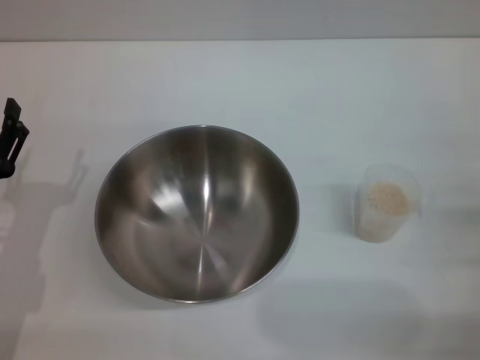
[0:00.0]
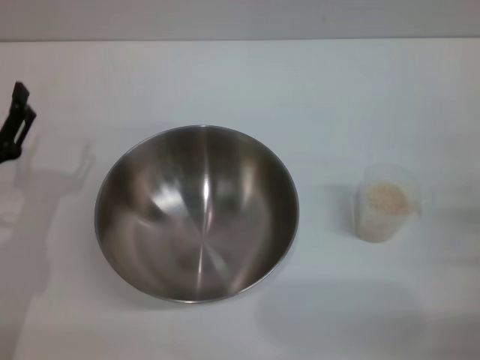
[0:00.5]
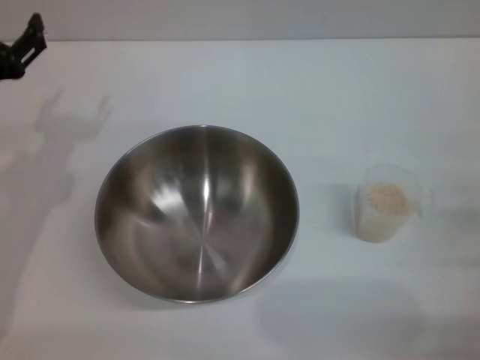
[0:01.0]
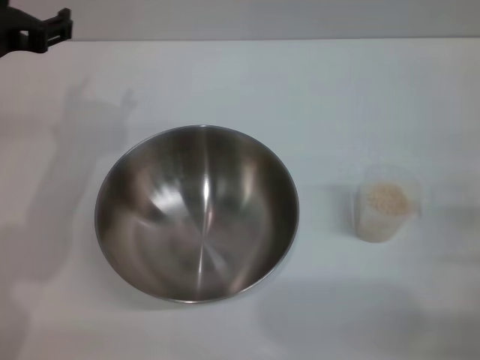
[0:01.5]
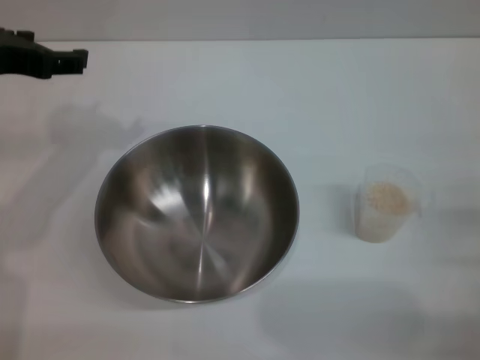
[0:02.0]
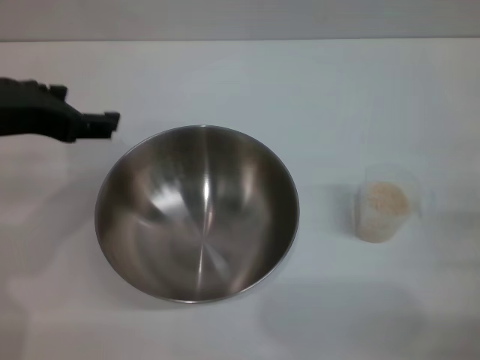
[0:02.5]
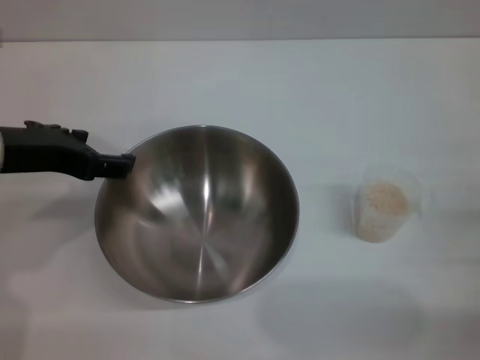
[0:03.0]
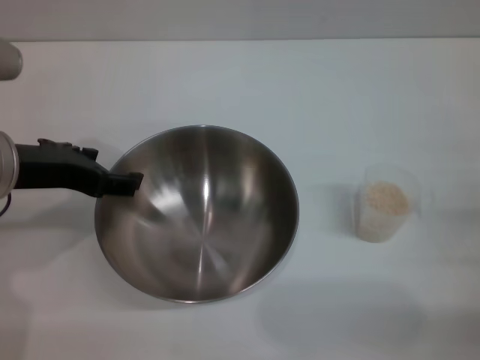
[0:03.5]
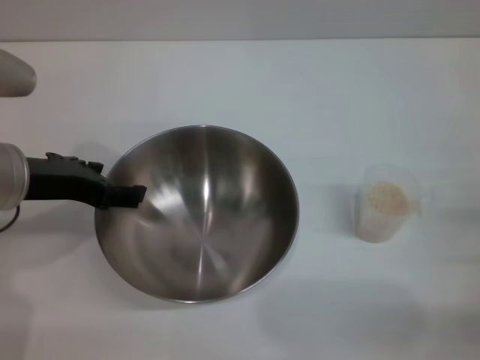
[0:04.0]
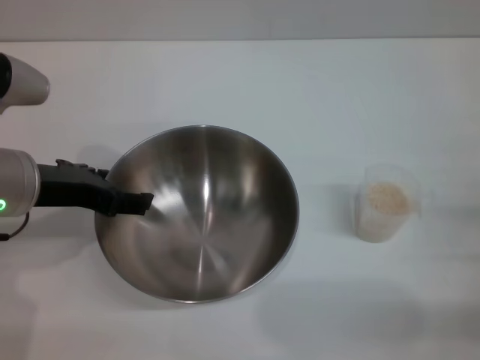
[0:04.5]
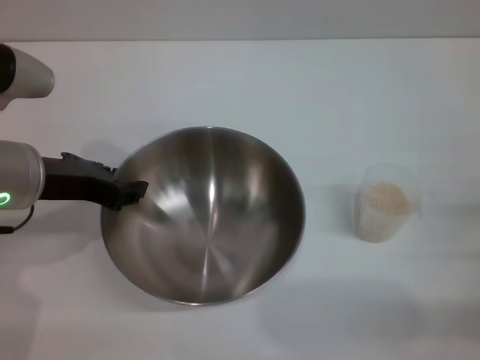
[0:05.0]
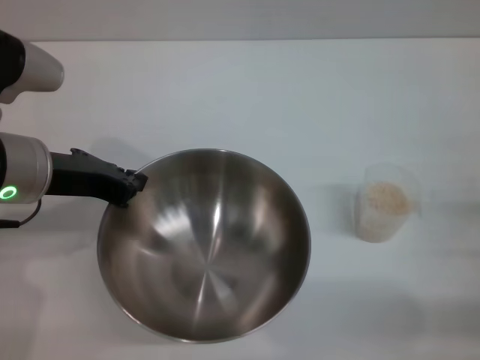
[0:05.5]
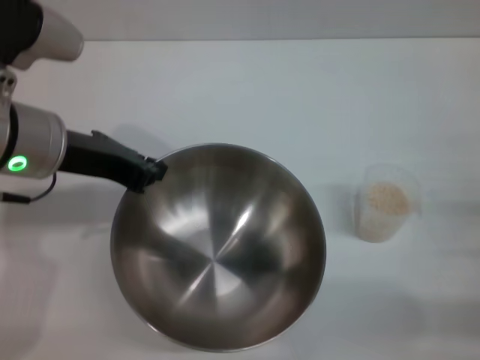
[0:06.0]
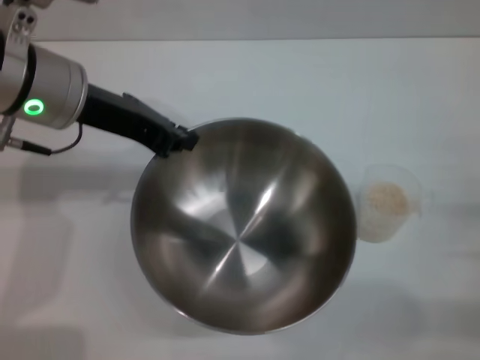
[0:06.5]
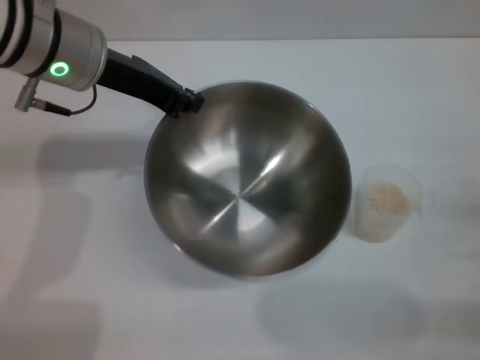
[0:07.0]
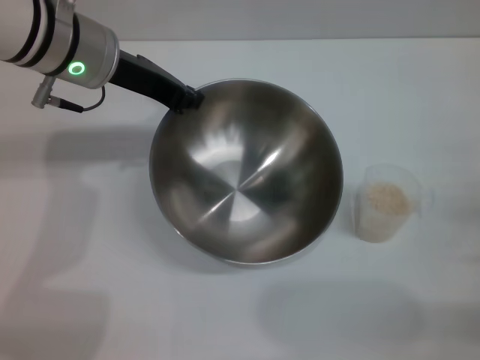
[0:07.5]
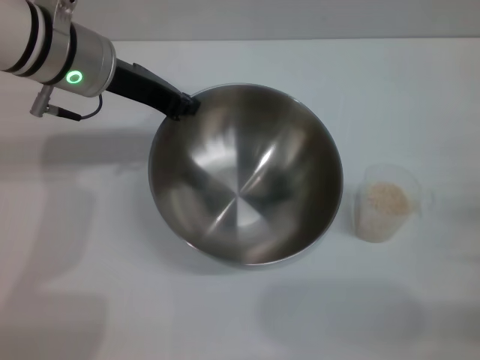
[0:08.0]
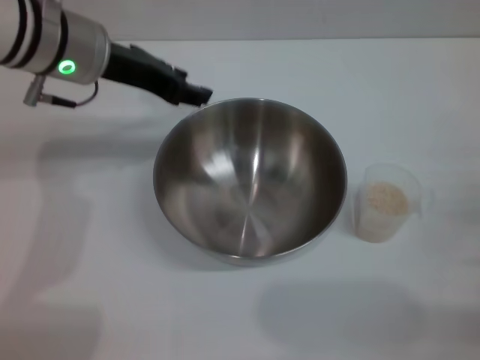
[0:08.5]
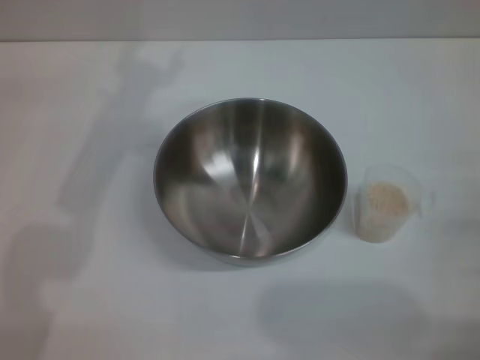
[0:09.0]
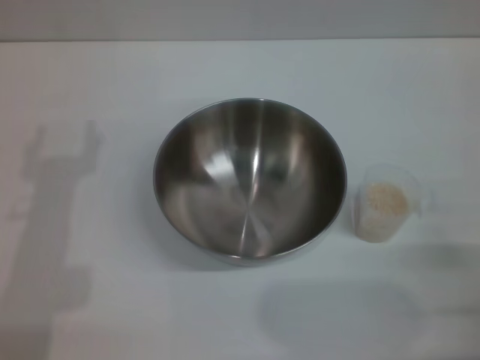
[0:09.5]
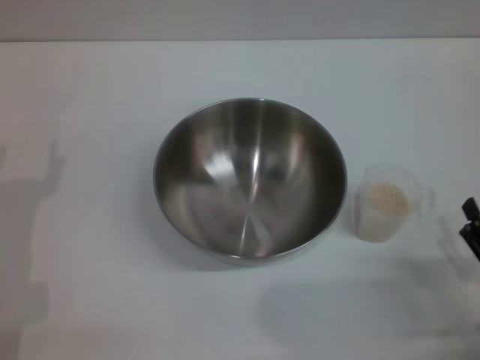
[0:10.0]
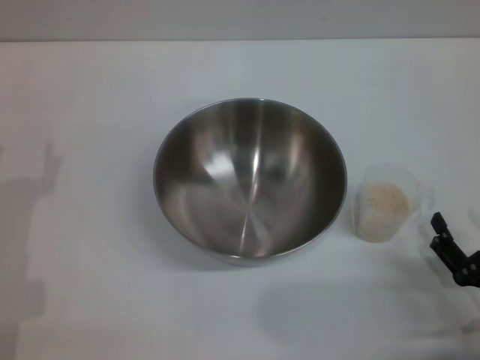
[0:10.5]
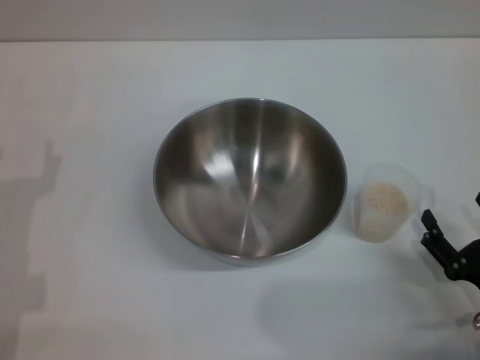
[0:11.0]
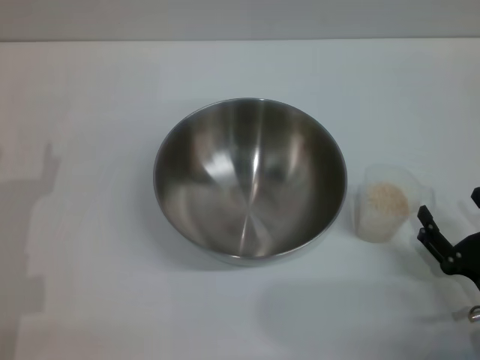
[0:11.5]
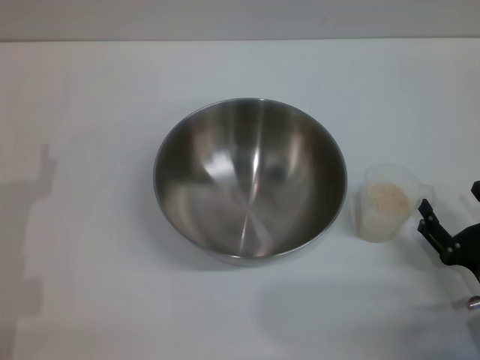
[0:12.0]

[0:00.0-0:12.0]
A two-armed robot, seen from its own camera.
Task of the whole recording: Place the bowl in the middle of the table with one hand and pour the rice from the grain cup into it with the other hand.
Step, 0:00.0 to 0:05.5: Pick up the bowl with the left gripper.
Step, 0:06.5 to 0:08.5: Place the bowl in the center of view with the left gripper.
0:00.0 to 0:02.0: The left gripper moves upward and forward, roughly 20 cm.
0:02.0 to 0:04.0: The left gripper heads downward, covering some 5 cm.
0:04.0 to 0:06.0: The left gripper closes.
0:06.0 to 0:08.0: The left gripper heads forward, covering approximately 10 cm.
0:08.0 to 0:10.0: The right gripper is displaced backward by about 5 cm; the left gripper goes about 25 cm backward, downward and to the left, and opens its fingers.
0:10.0 to 0:12.0: There are only small adjustments of the grippers.

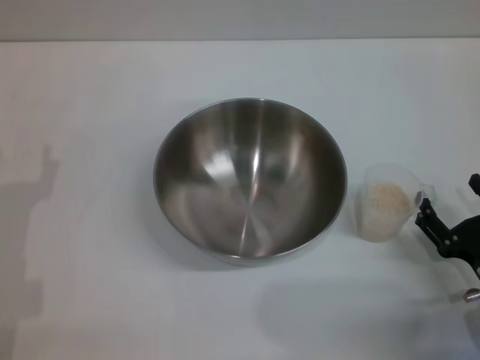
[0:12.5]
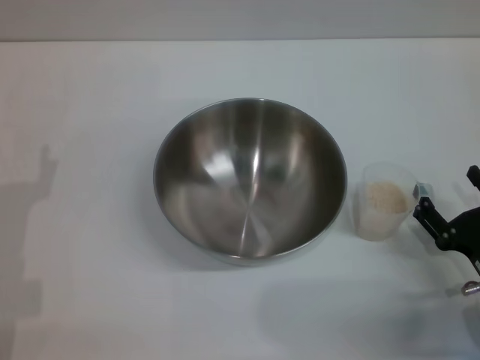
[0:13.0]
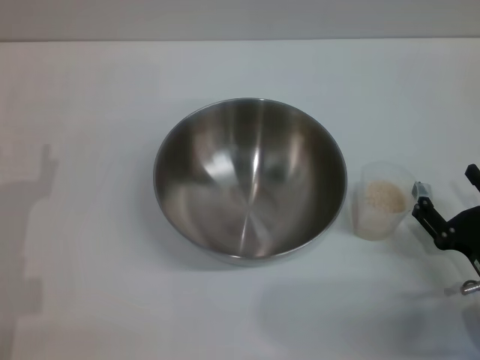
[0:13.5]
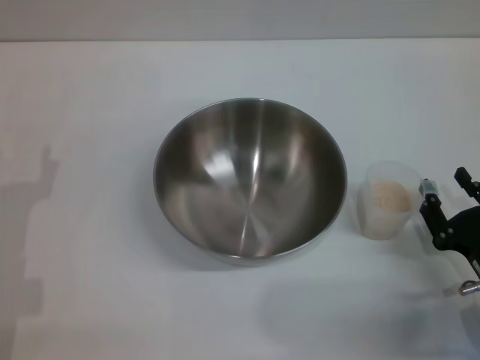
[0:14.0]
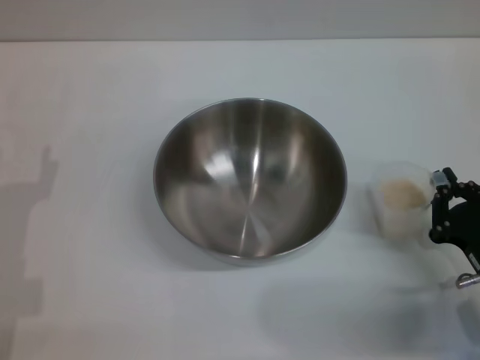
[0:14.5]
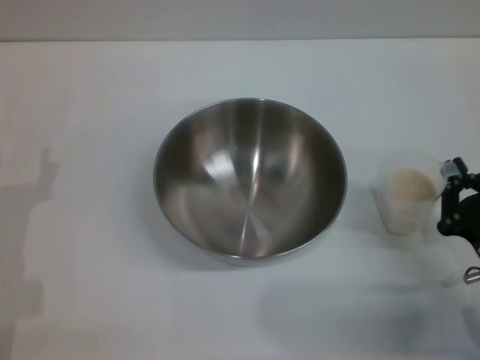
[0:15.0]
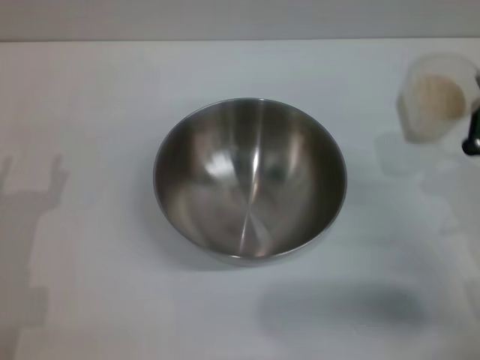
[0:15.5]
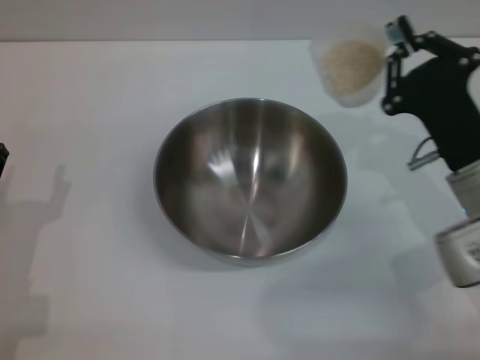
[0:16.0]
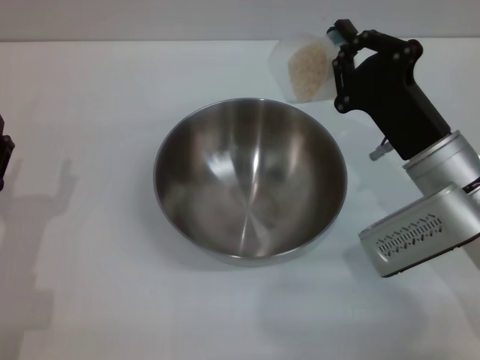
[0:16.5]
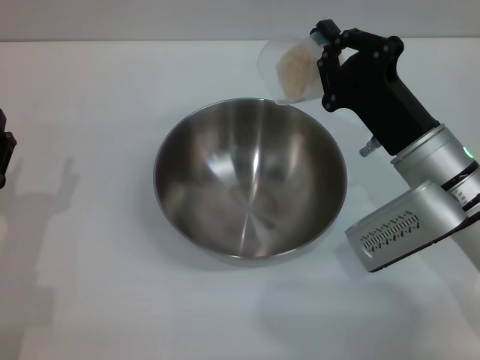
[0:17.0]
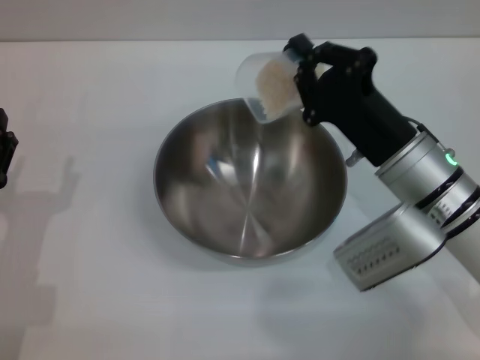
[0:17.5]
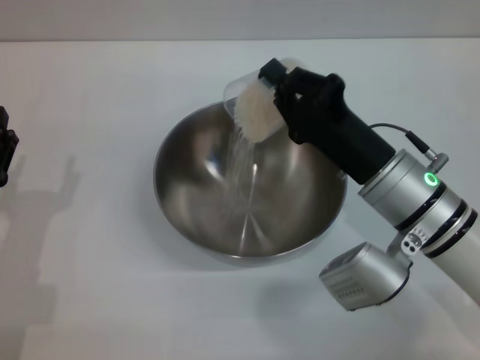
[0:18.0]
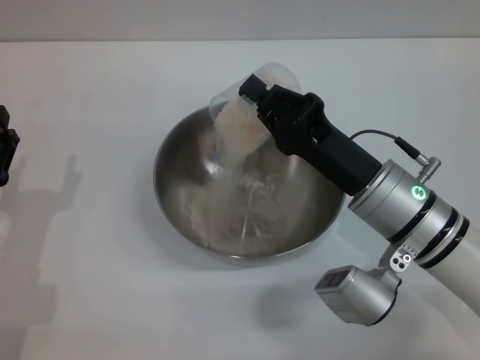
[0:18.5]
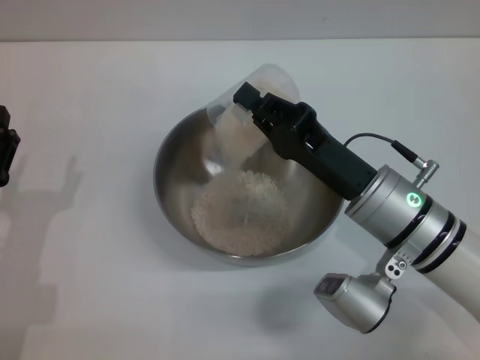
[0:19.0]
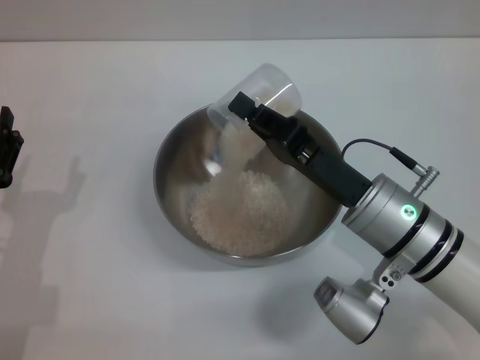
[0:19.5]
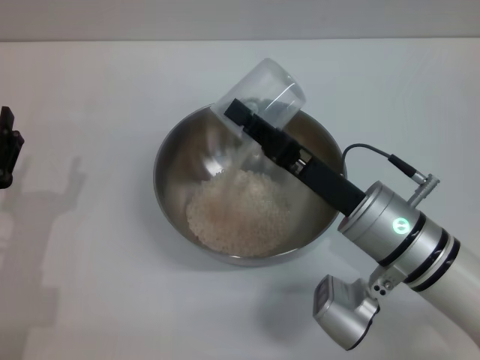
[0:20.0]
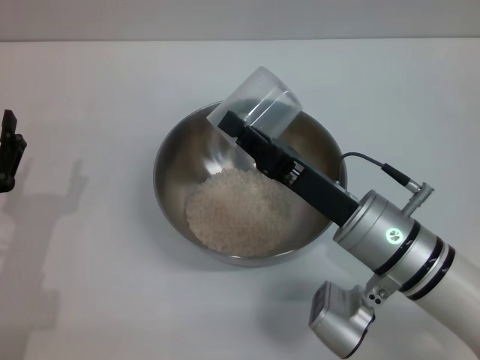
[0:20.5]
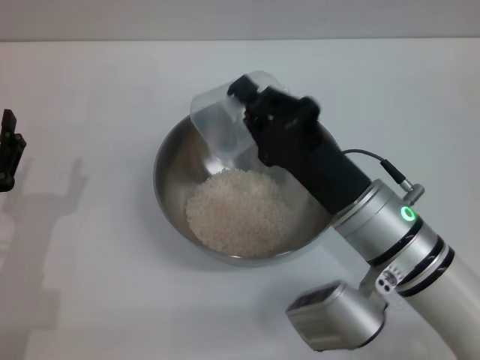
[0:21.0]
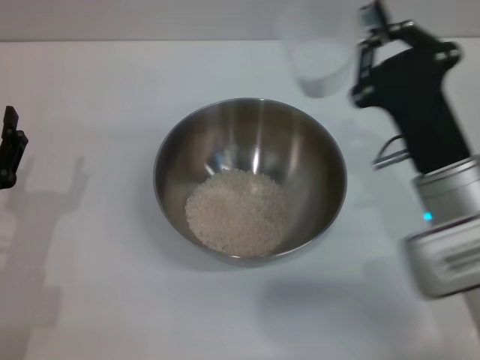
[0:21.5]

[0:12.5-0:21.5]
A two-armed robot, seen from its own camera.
Task of the whole recording: Place the bowl in the middle of the table with one hand and pour the rice from the grain cup into it with the other hand.
Step, 0:12.5 to 0:15.0: Pick up the cup with rice in it with the right gripper.
0:12.5 to 0:14.5: The right gripper closes its fingers.
0:14.5 to 0:17.0: The right gripper is displaced forward, to the left and upward by about 15 cm.
0:17.0 to 0:19.5: The right gripper moves roughly 5 cm.

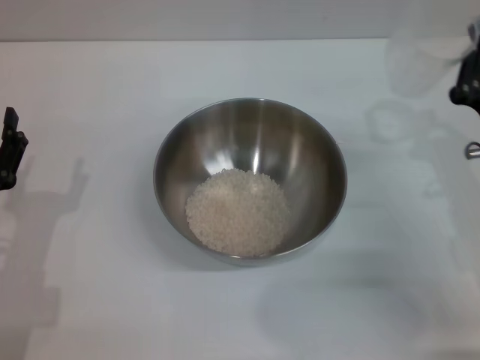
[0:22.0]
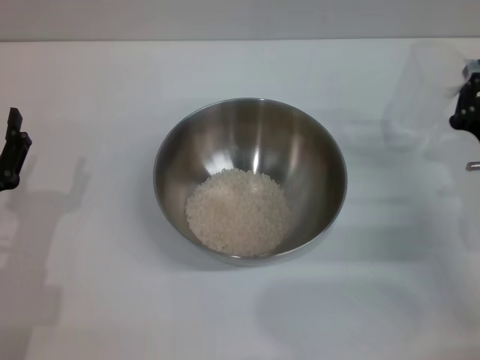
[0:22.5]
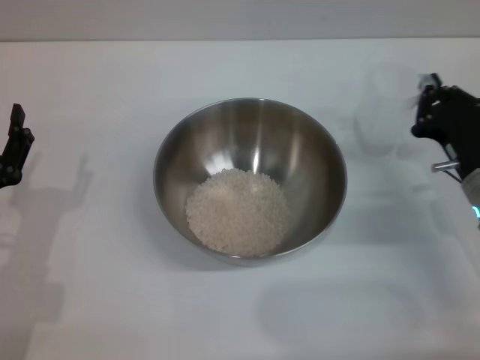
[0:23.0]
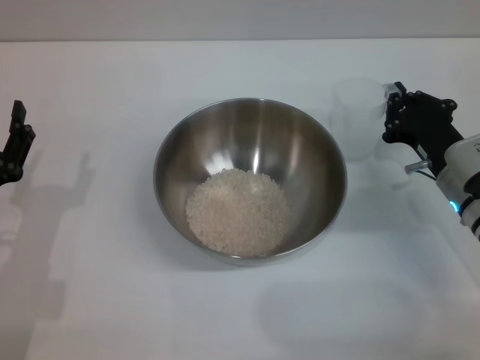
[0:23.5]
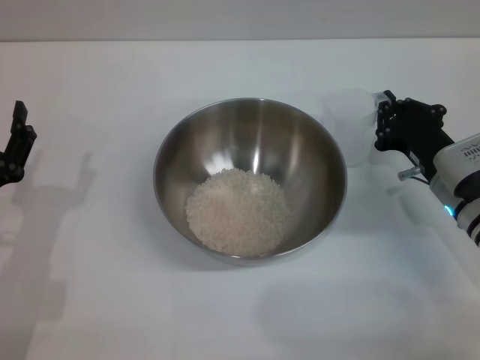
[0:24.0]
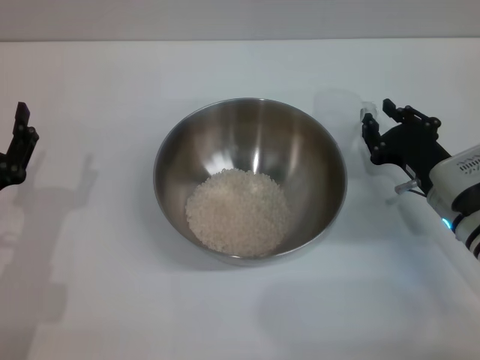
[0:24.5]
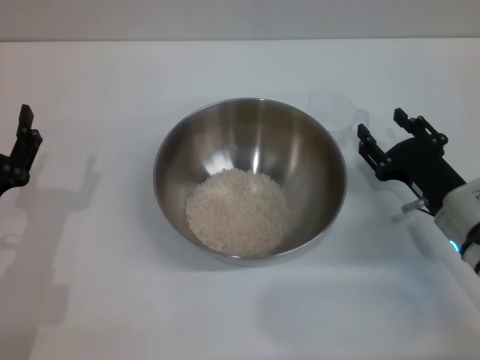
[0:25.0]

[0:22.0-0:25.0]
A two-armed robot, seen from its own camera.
Task of the whole recording: Place the bowl in the middle of the table with one hand and pour the rice from the grain cup into it with the other hand.
Step, 0:22.0 to 0:25.0: Place the cup on the table with the right gripper.
0:22.0 to 0:23.5: The right gripper shifts by roughly 5 cm.
0:23.5 to 0:25.0: The right gripper opens its fingers.
